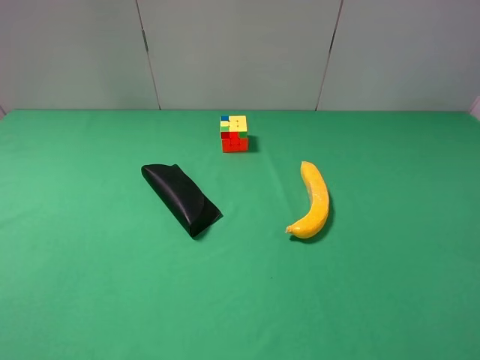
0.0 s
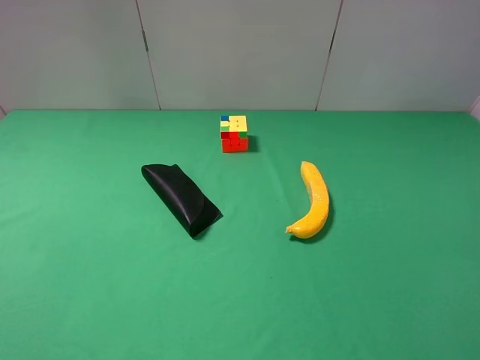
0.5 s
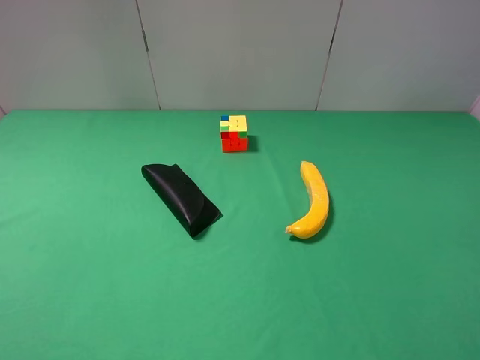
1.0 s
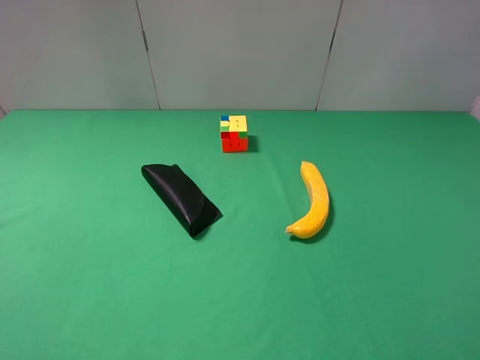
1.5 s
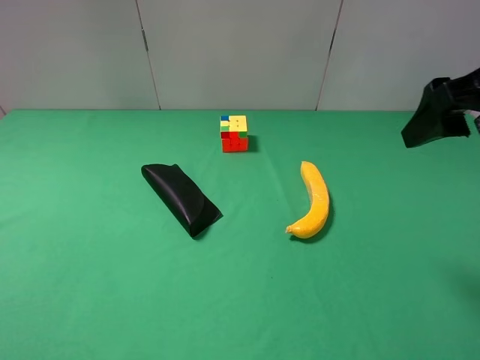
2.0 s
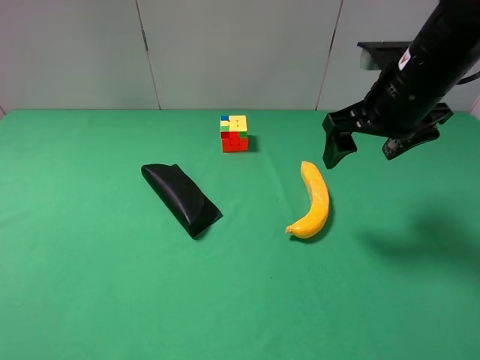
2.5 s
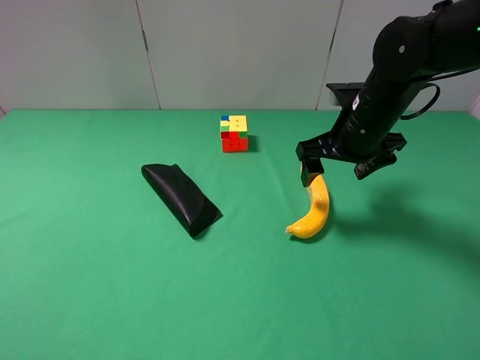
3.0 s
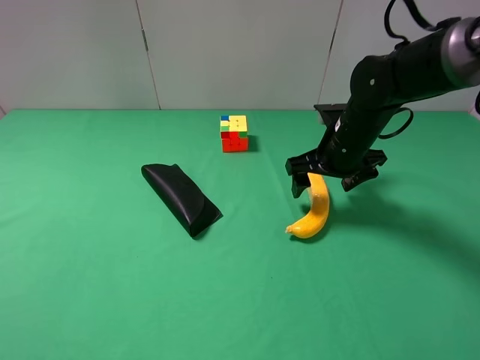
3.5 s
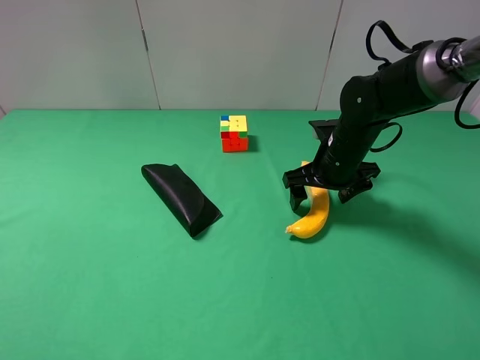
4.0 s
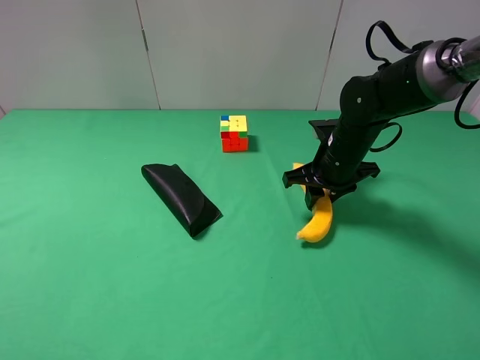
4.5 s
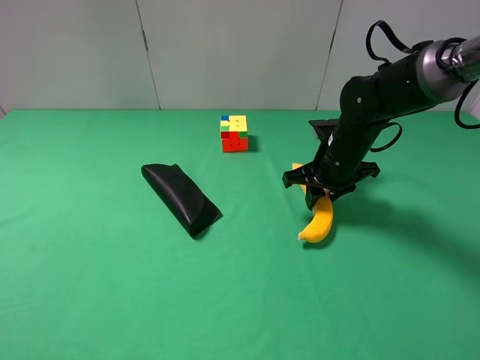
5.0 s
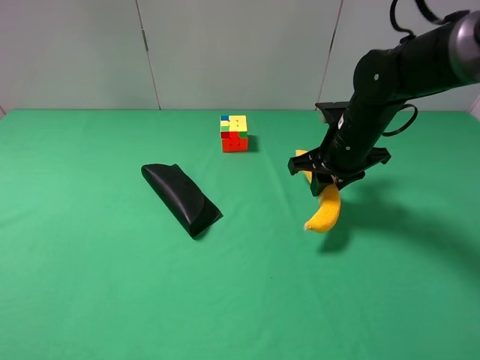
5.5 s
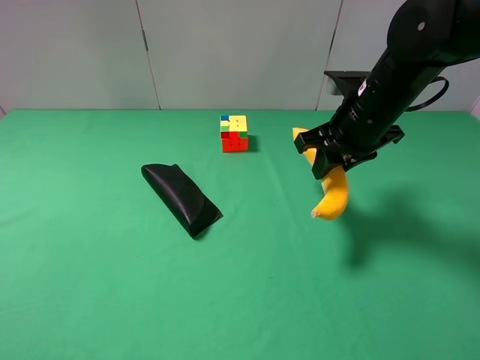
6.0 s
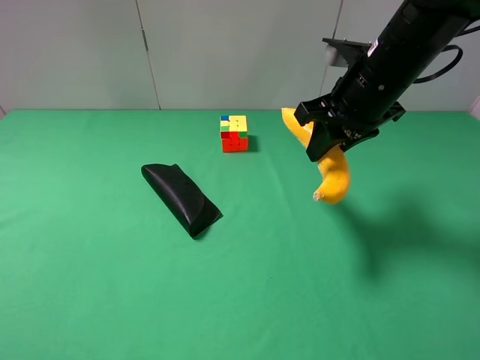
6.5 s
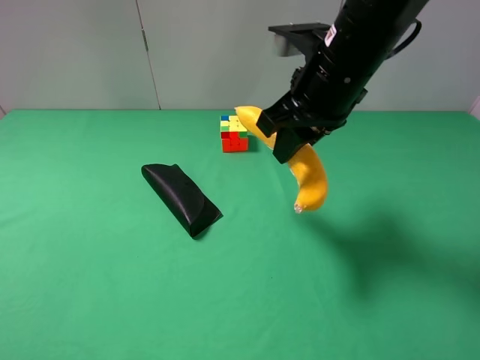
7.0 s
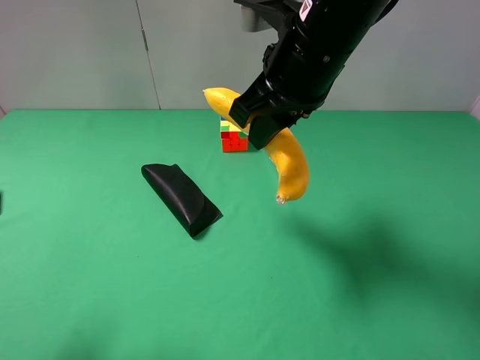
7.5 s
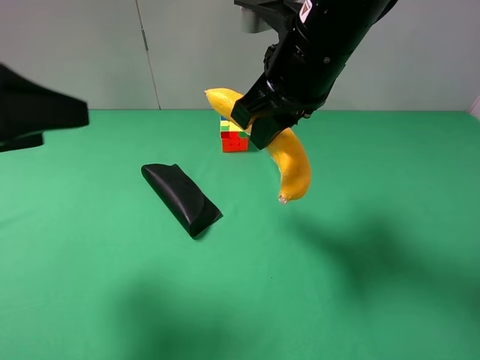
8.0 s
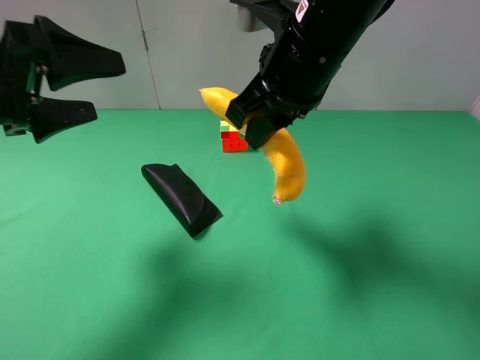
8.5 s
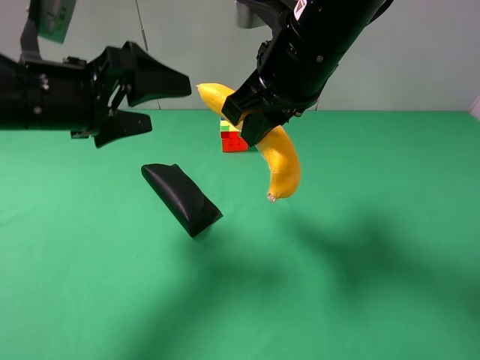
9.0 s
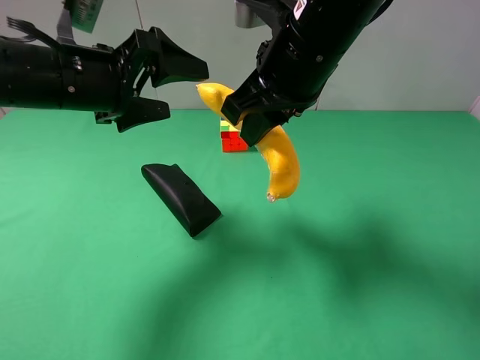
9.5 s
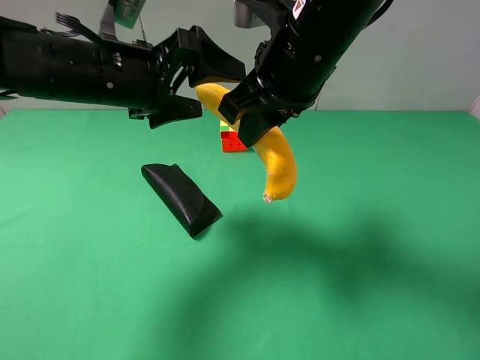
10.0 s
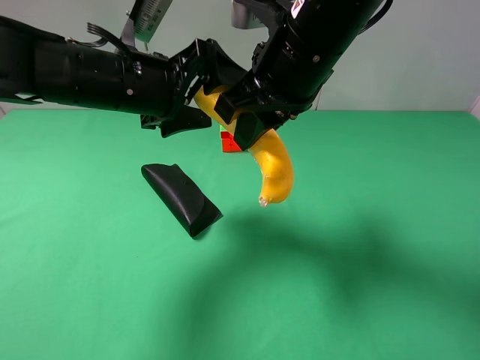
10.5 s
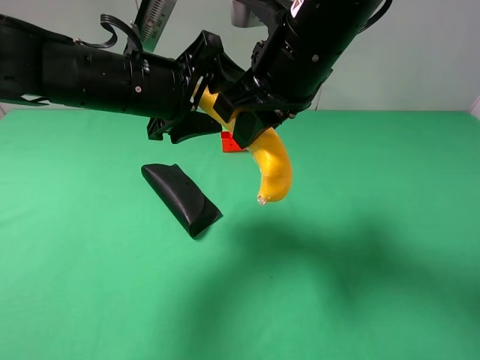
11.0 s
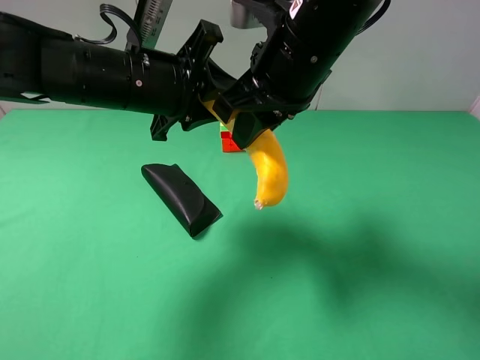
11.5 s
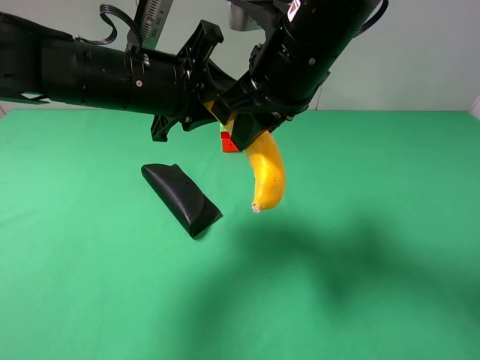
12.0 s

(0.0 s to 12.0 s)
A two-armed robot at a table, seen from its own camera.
Task of the whole recording: use the right gripper to pick up the item and transfer it from the right gripper to the left gripper.
0.0 s - 2.0 s: The right gripper moves forward, some 20 cm.
2.0 s - 4.0 s: The right gripper shifts roughly 25 cm downward and forward.
4.0 s - 6.0 s: The right gripper travels upward by approximately 10 cm, and closes its fingers.
6.0 s - 8.0 s: The right gripper heads to the left and upward, covering some 15 cm, while the left gripper is displaced forward by roughly 15 cm.
8.0 s - 10.0 s: The left gripper shifts about 15 cm to the right and forward.
10.0 s - 12.0 s: The left gripper closes up.

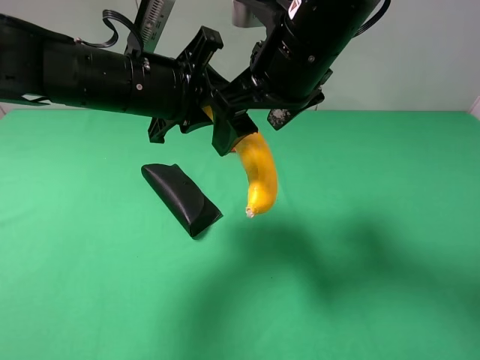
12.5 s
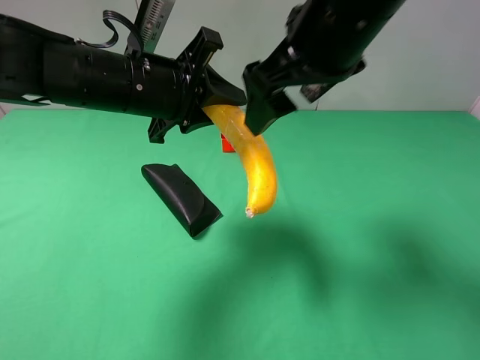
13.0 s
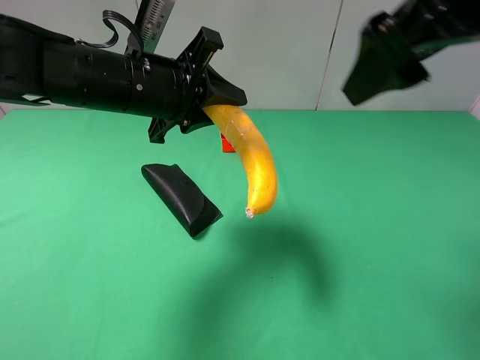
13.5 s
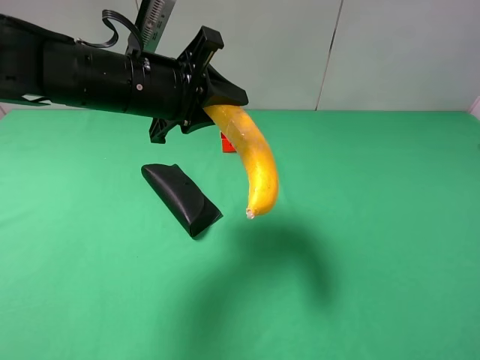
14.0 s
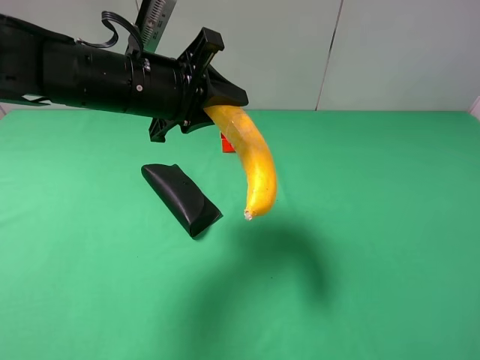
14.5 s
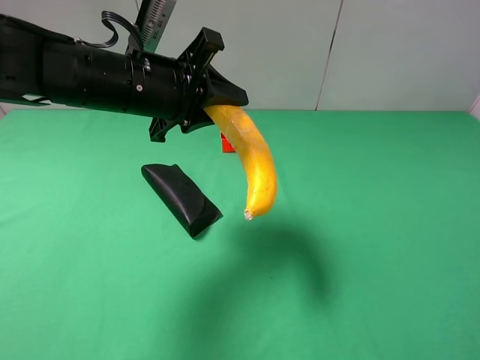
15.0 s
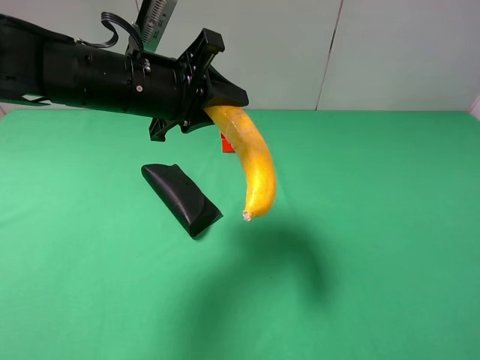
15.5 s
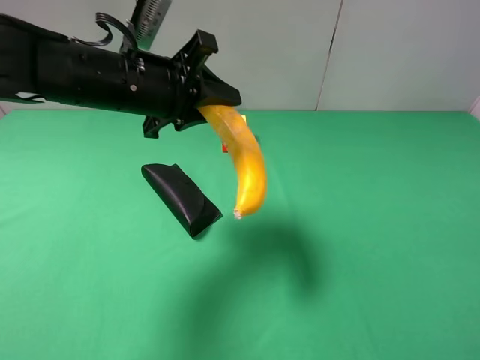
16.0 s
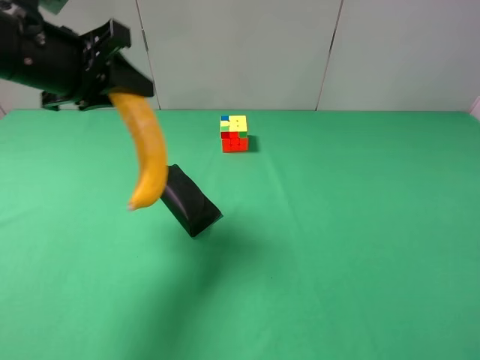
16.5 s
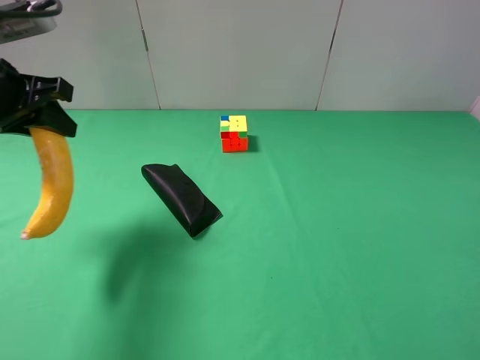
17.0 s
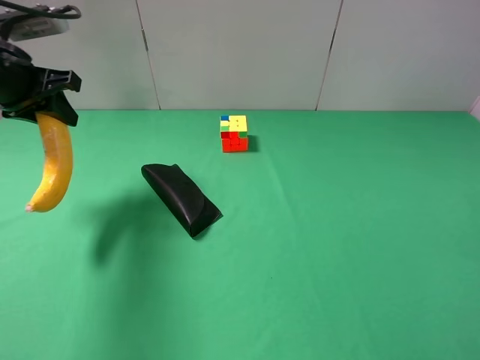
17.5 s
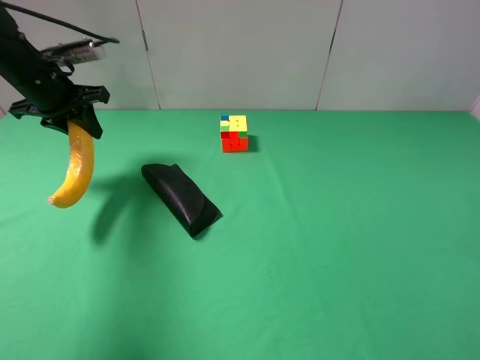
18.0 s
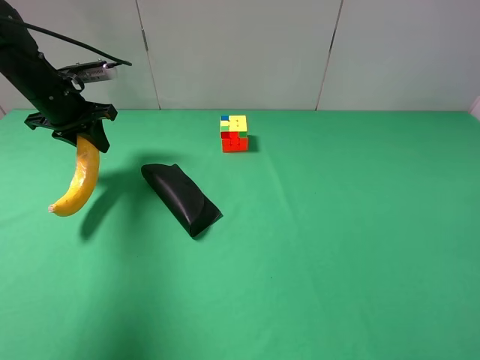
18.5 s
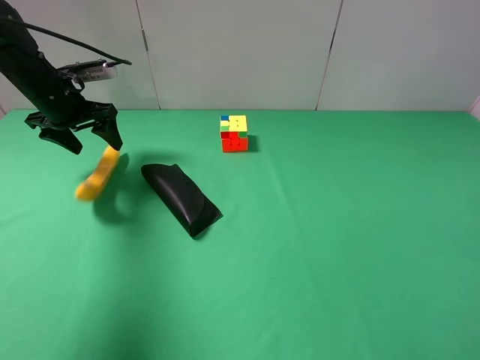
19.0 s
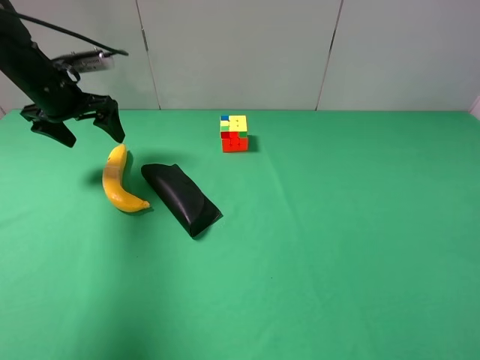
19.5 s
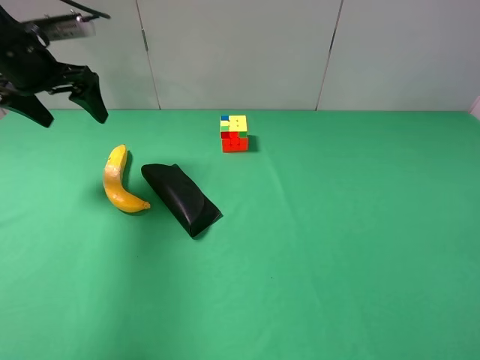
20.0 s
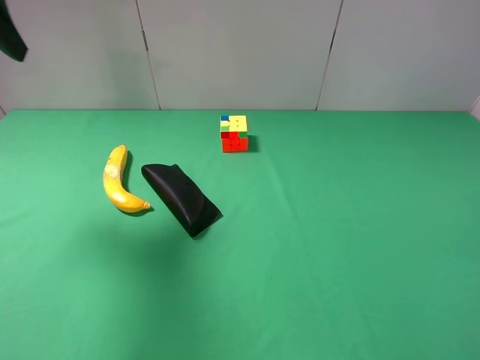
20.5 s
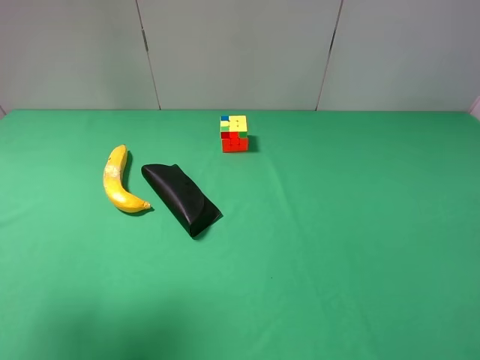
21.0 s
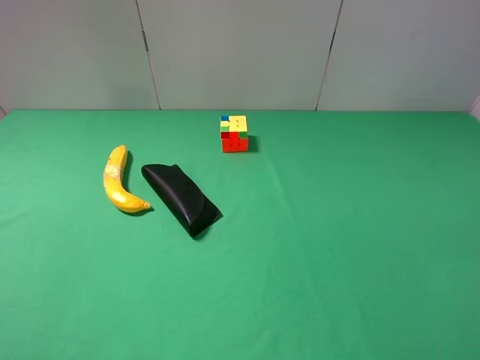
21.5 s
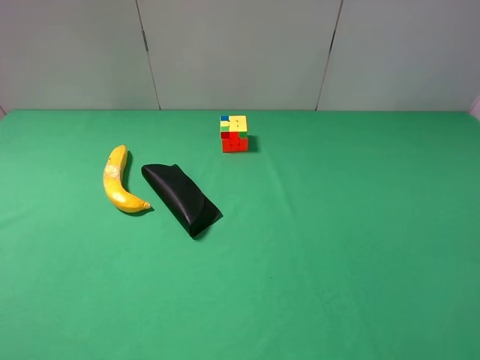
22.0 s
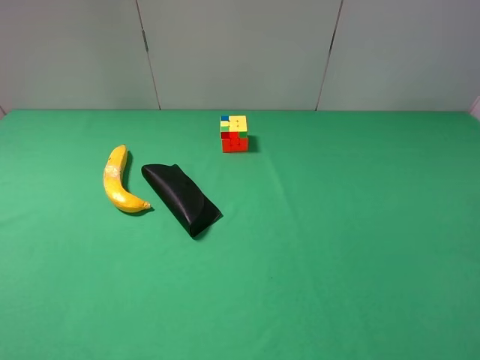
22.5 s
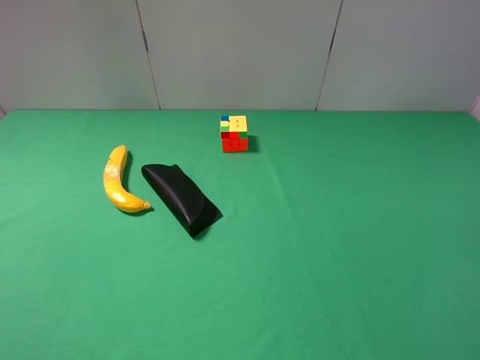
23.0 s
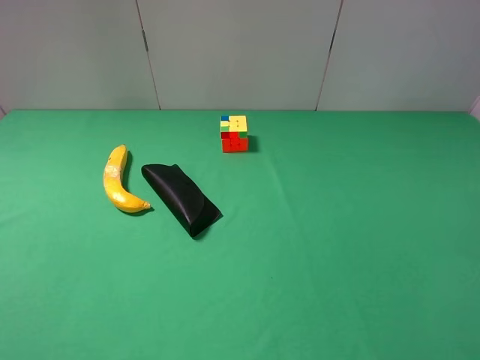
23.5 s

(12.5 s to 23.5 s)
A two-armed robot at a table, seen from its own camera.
Task of the whole recording: use the right gripper to pick up the item and transfer it from the right gripper to the left gripper.
Step, 13.0 s - 19.0 s: The left gripper places banana on the left side of the table.
12.5 s - 14.5 s: The right gripper travels backward and to the right by roughly 35 cm.
16.0 s - 18.0 s: The left gripper travels to the left and forward by some 20 cm.
18.0 s - 20.0 s: The left gripper heads upward, covering some 5 cm, and opens up.
20.0 s - 21.5 s: The left gripper shifts some 35 cm backward.

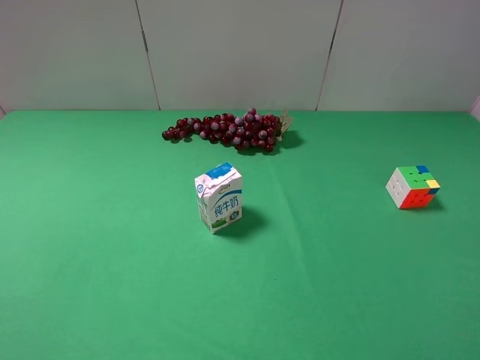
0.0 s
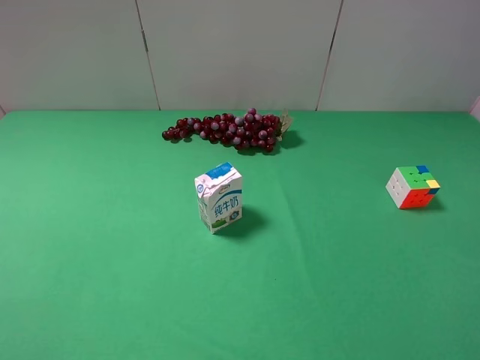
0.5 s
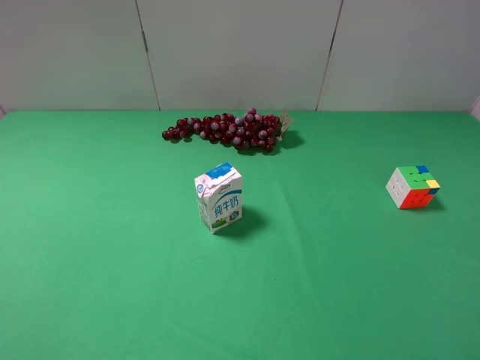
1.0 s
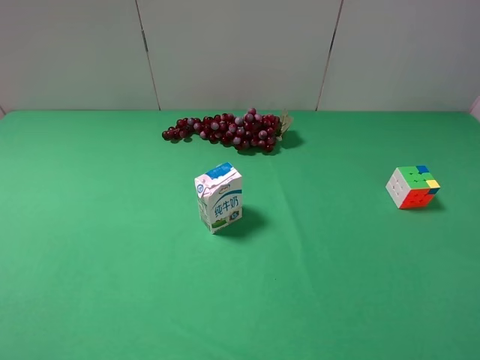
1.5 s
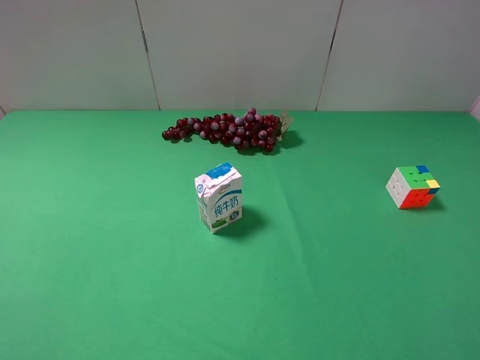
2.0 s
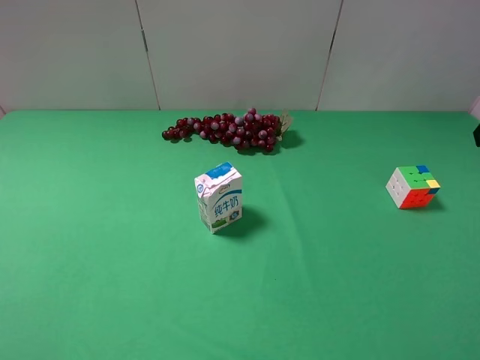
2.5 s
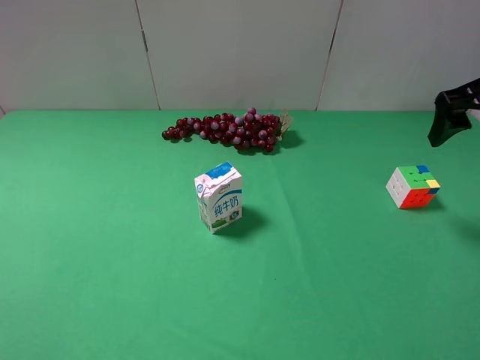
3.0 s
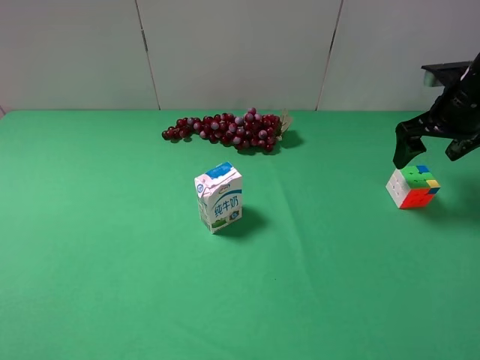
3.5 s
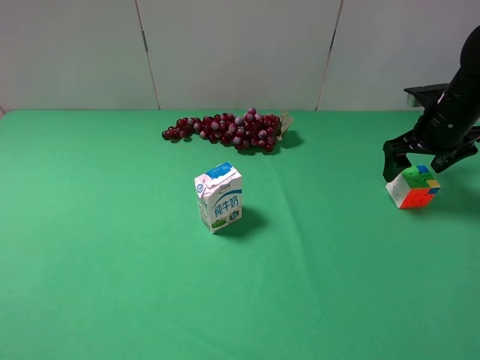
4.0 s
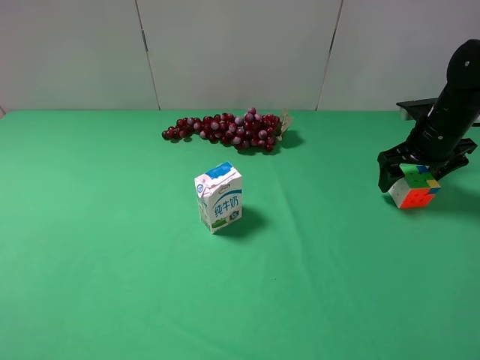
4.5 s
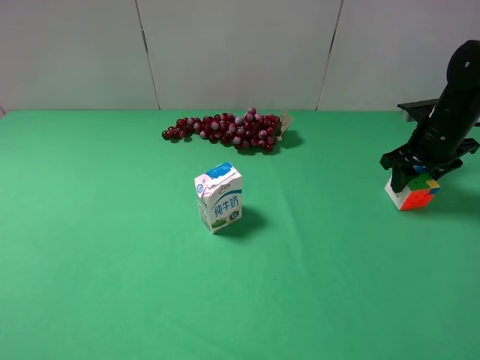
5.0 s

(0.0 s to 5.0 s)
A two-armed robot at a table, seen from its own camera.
Task of the whole recording: use the right gripper to pick up the item and transfer it from the right gripper to the left gripper.
Step, 0.0 s - 5.0 s: Use the right gripper to grab the Rubik's Cube on the right side of the table.
2.5 s - 5.0 s: The right gripper heads downward and forward, covering about 25 cm, and closes.
